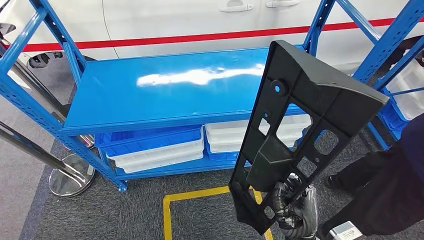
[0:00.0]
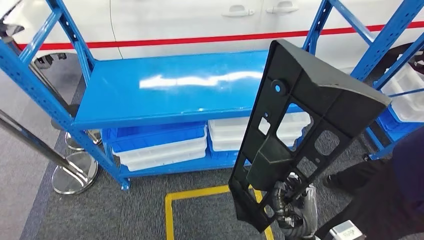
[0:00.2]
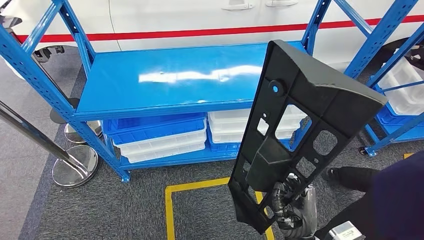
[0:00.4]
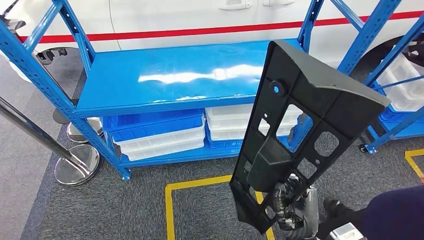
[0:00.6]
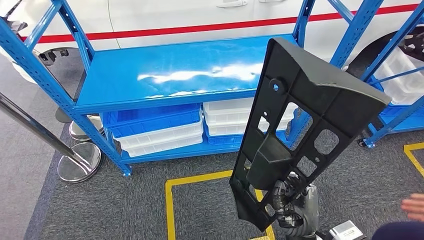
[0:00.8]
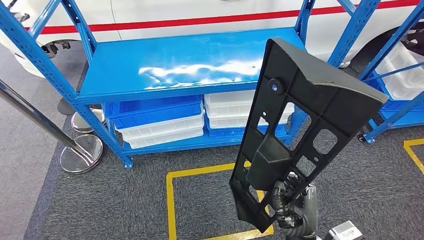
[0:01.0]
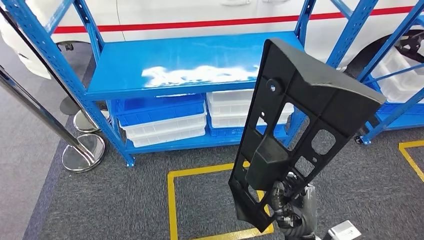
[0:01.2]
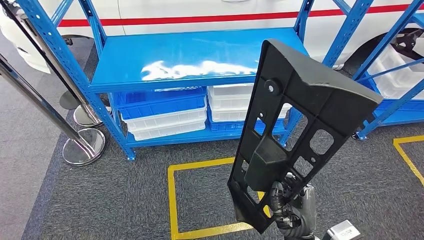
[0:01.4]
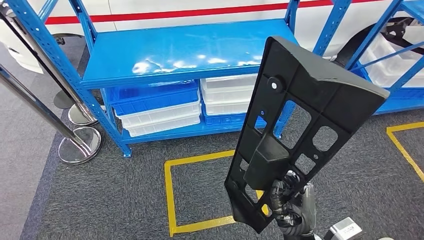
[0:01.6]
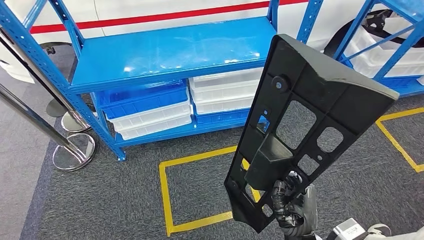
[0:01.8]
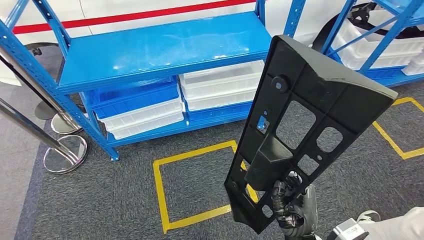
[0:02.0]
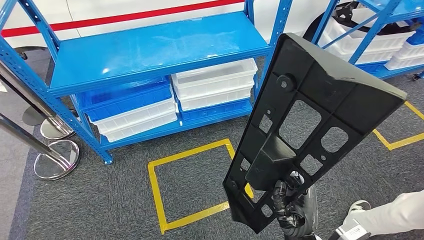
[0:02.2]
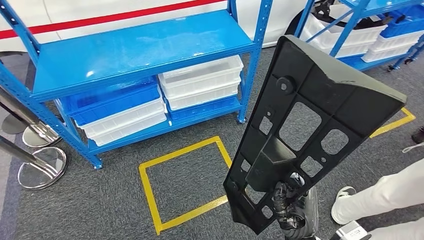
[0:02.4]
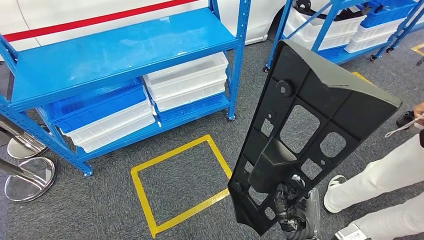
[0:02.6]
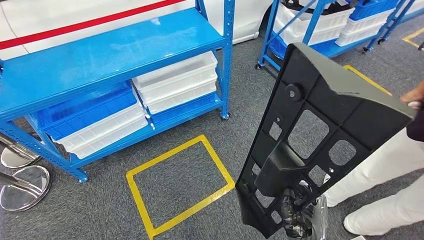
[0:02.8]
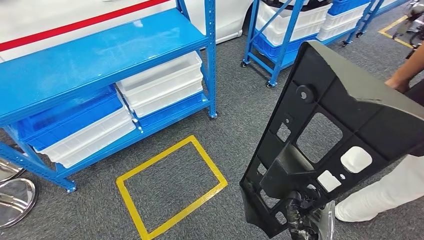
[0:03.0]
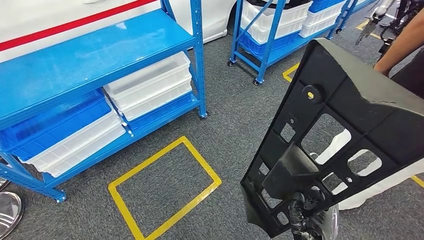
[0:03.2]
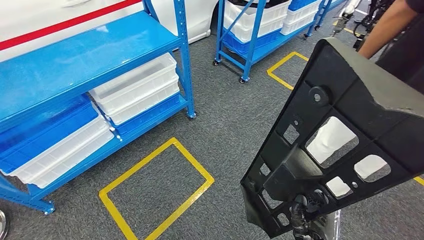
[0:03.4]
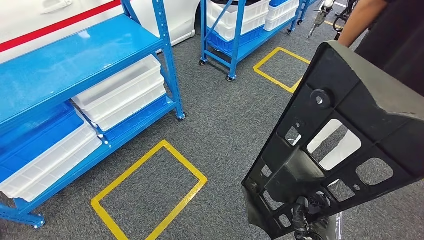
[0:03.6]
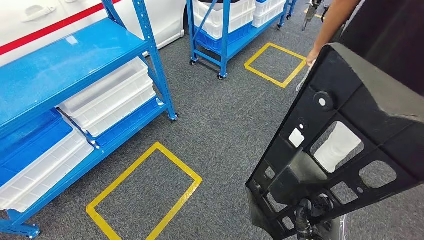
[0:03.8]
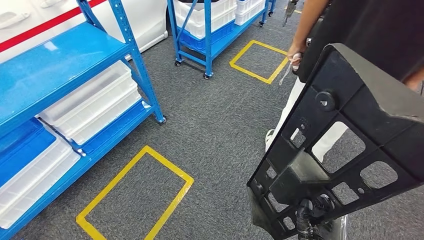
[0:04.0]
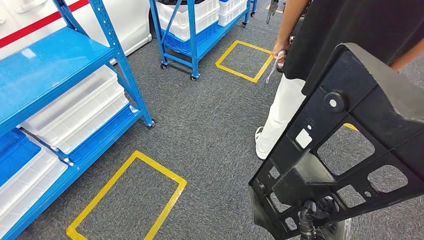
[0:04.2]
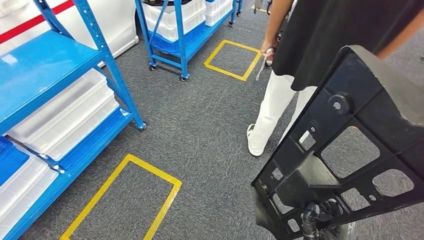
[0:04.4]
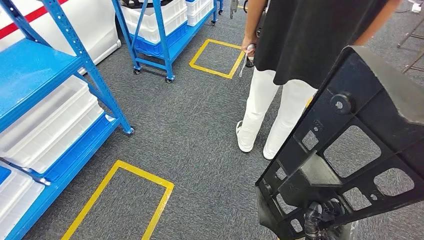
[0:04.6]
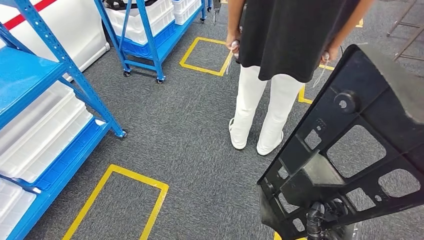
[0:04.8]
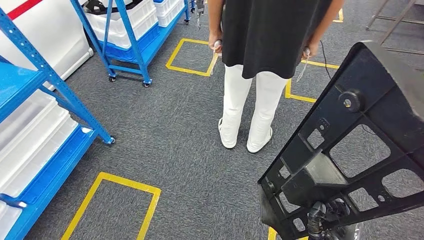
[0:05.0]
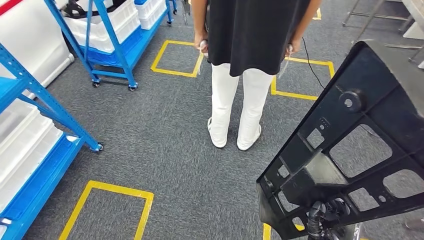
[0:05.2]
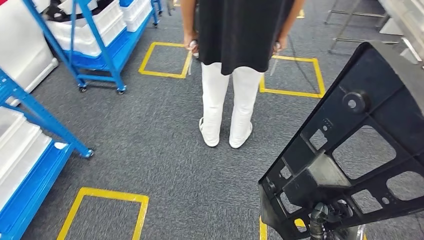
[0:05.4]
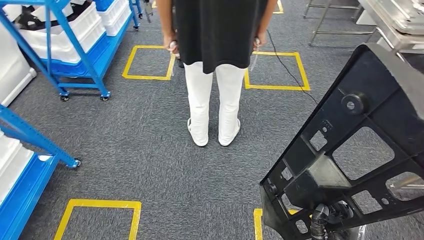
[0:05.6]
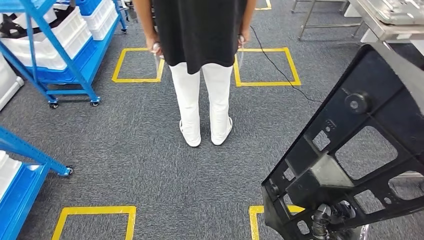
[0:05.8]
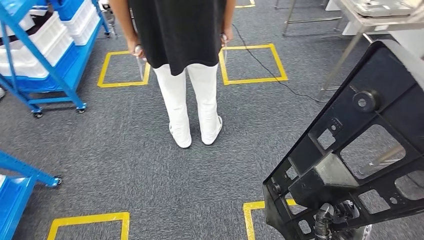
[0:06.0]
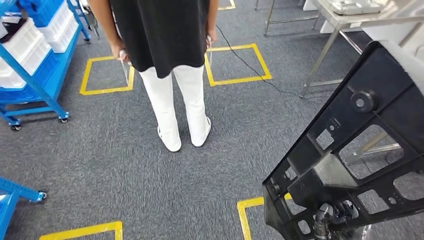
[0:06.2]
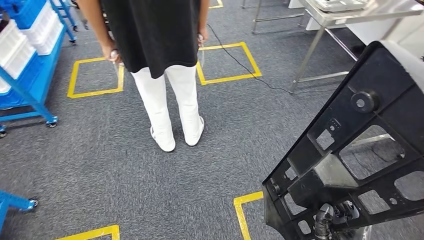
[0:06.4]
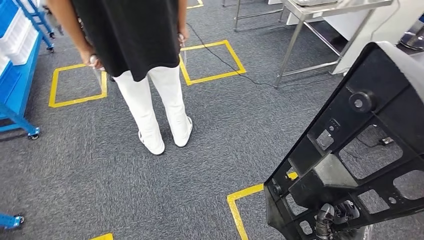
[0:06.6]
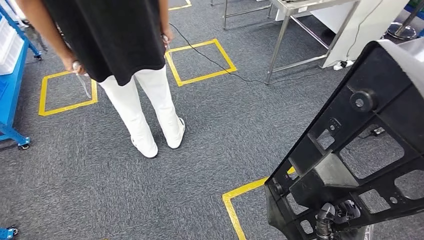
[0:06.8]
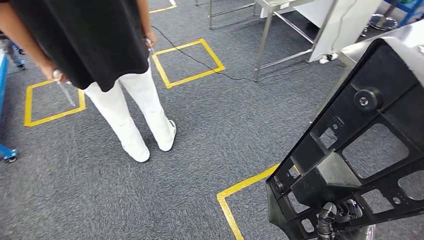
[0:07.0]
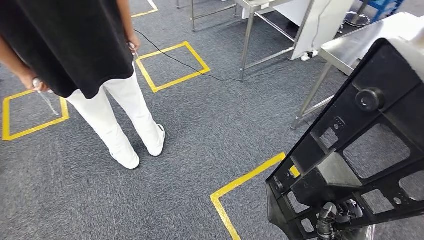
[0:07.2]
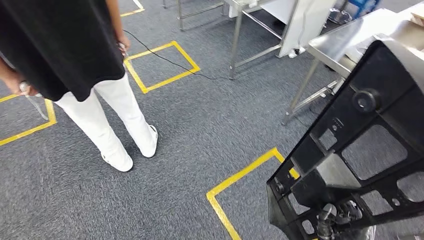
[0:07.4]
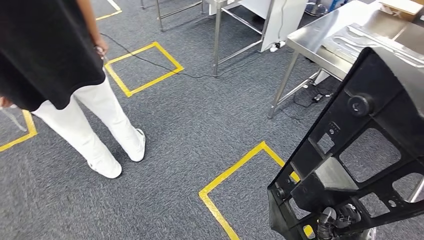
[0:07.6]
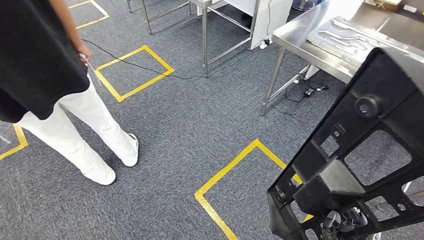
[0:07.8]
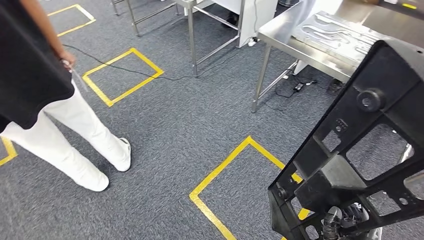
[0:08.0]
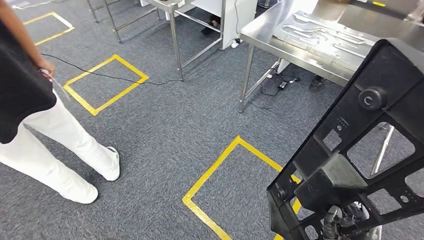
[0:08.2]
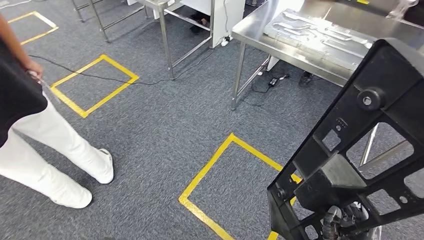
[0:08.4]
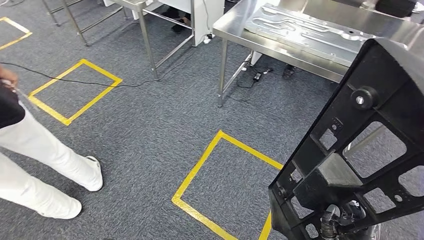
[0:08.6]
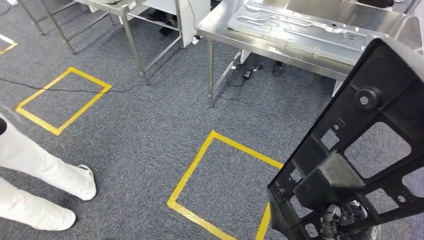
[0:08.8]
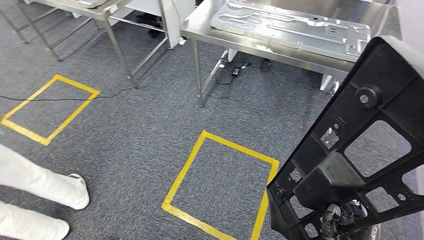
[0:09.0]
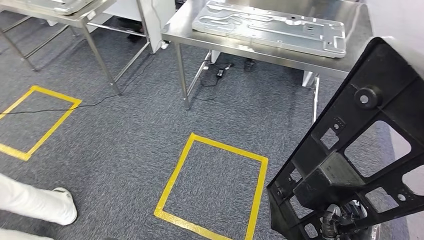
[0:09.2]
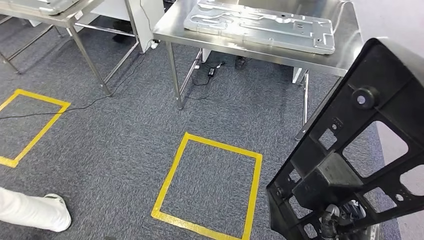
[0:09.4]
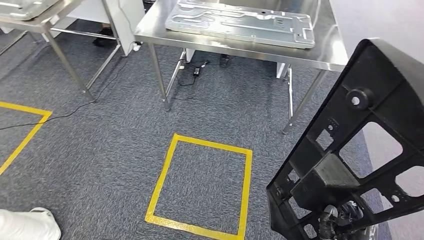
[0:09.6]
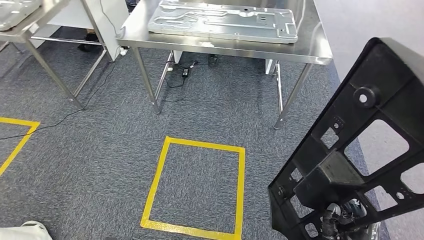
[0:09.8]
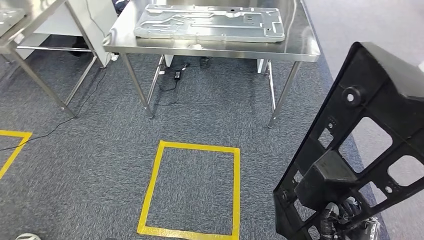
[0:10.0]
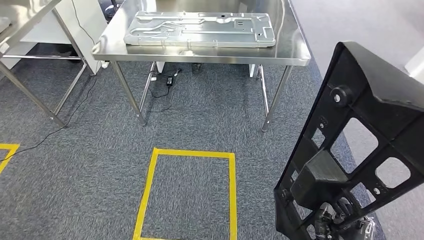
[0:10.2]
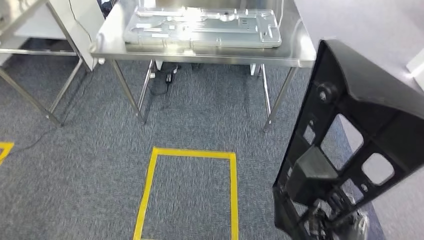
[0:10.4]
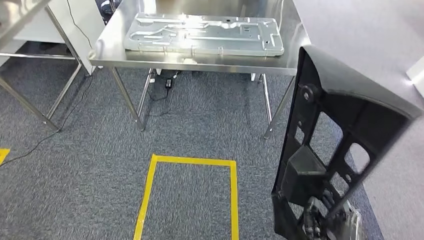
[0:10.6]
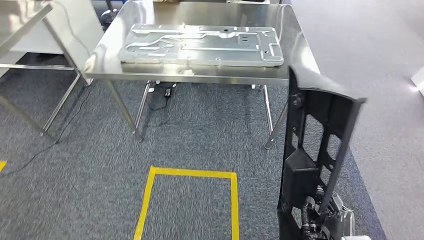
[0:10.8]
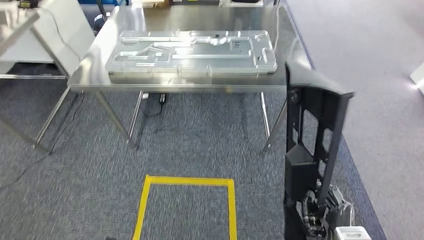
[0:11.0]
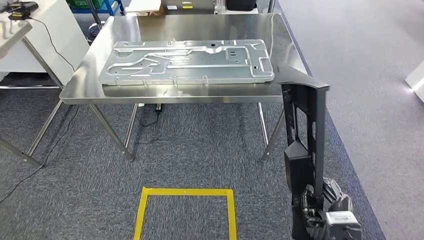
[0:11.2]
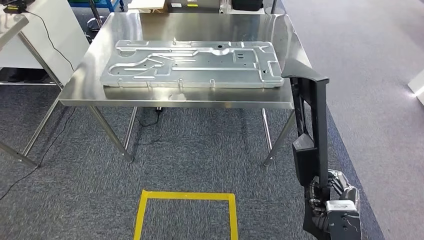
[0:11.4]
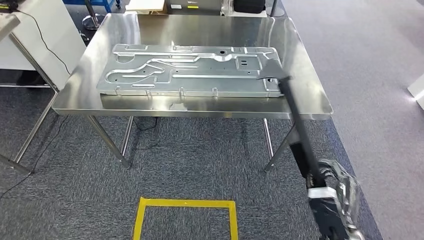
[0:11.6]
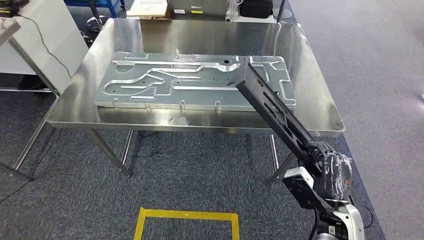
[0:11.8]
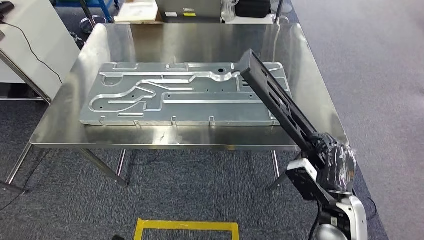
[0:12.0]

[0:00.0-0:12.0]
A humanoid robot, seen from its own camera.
Step, 0:00.0 to 0:12.0: Move the large material to the workbench.

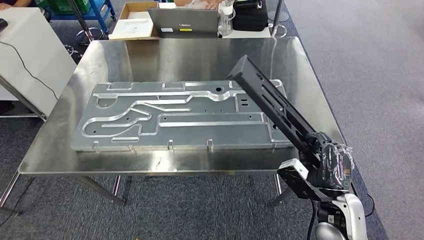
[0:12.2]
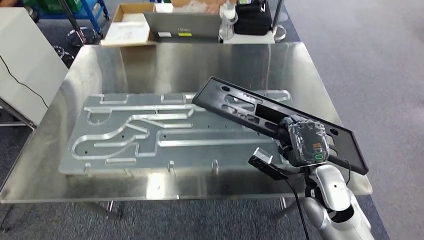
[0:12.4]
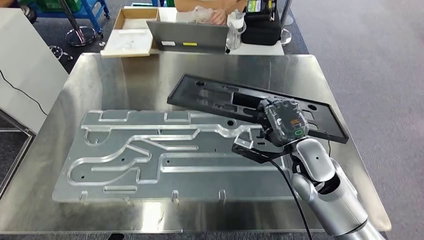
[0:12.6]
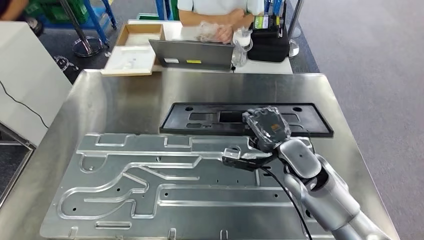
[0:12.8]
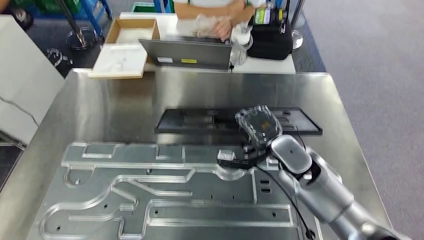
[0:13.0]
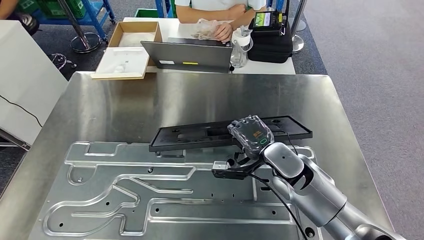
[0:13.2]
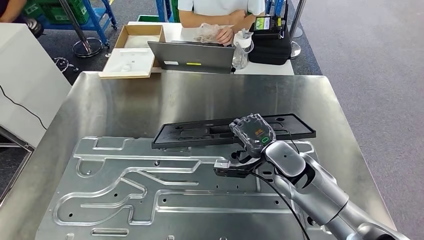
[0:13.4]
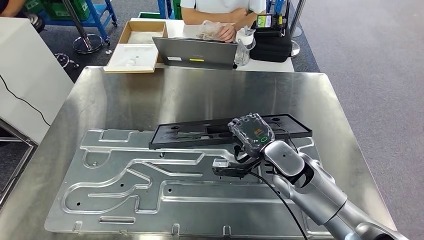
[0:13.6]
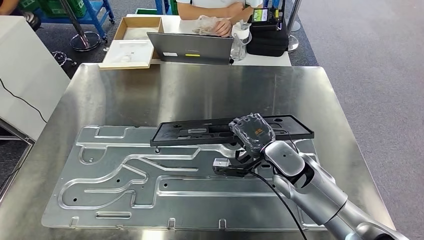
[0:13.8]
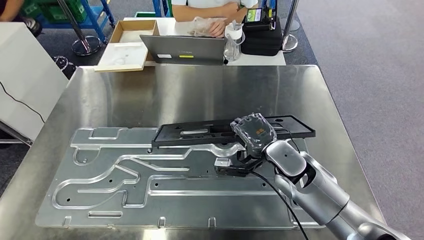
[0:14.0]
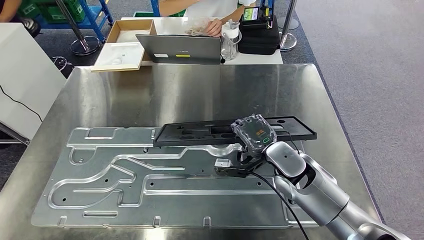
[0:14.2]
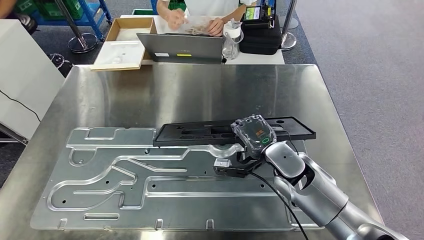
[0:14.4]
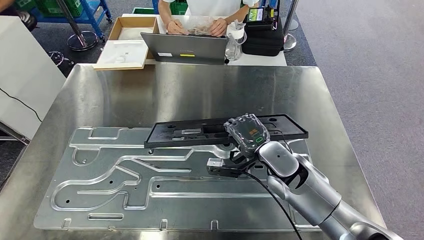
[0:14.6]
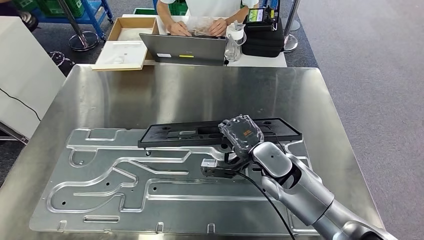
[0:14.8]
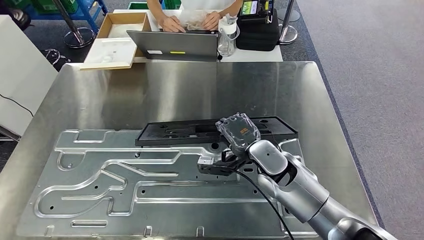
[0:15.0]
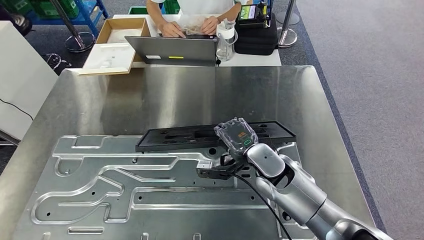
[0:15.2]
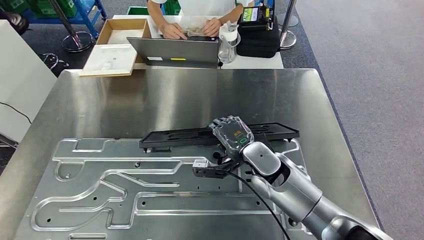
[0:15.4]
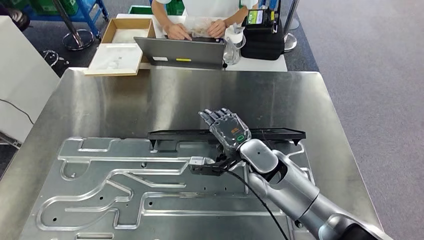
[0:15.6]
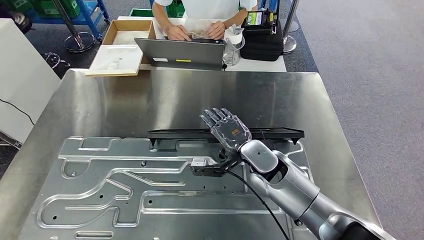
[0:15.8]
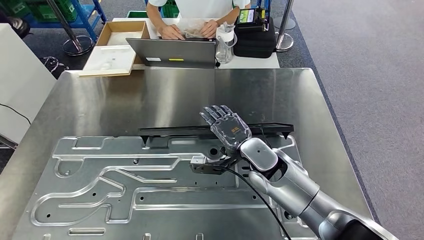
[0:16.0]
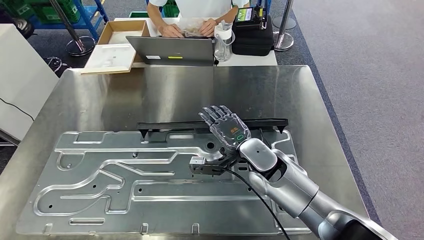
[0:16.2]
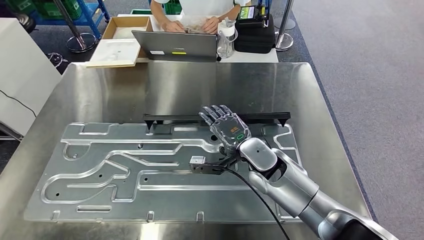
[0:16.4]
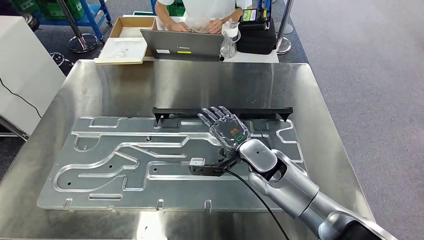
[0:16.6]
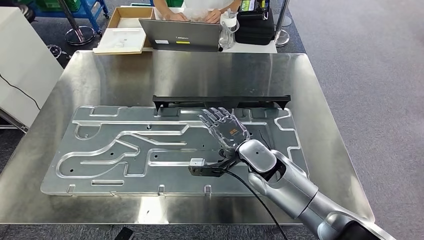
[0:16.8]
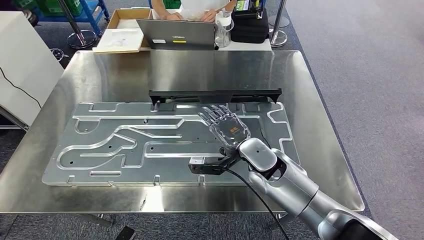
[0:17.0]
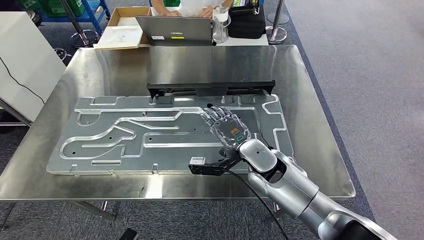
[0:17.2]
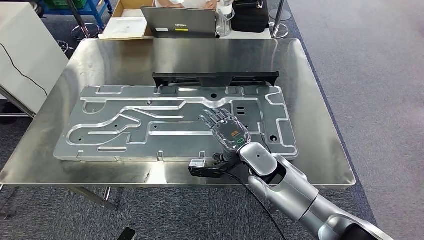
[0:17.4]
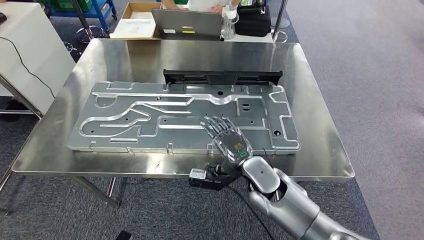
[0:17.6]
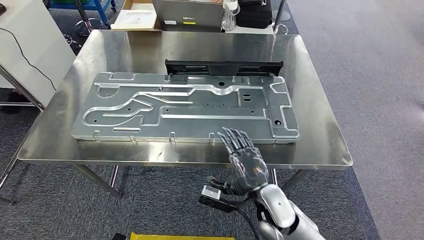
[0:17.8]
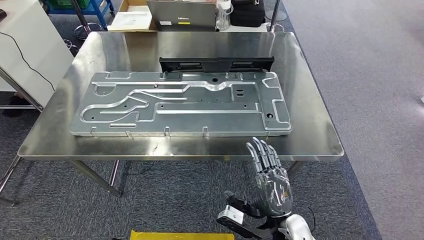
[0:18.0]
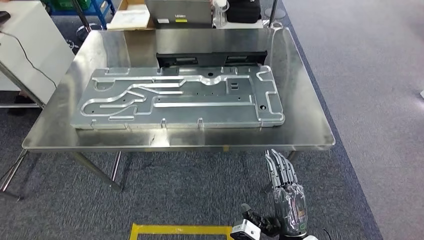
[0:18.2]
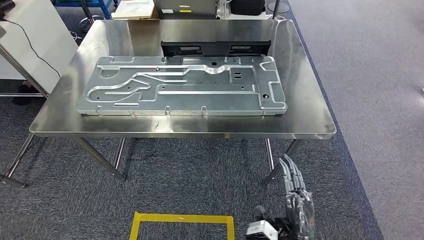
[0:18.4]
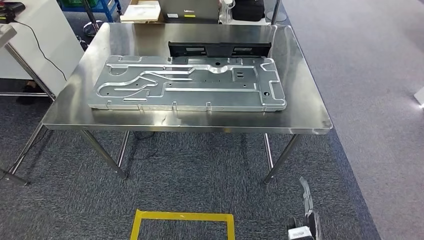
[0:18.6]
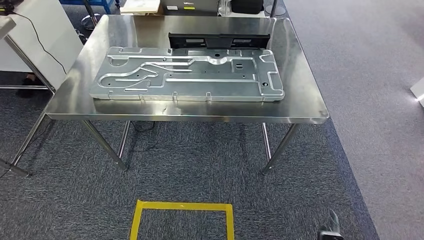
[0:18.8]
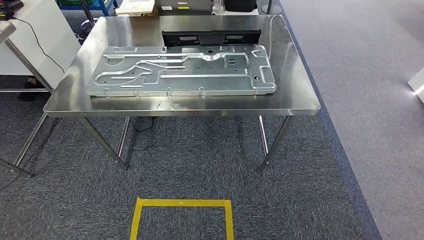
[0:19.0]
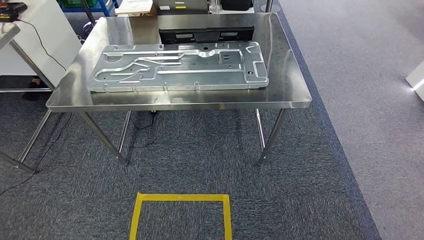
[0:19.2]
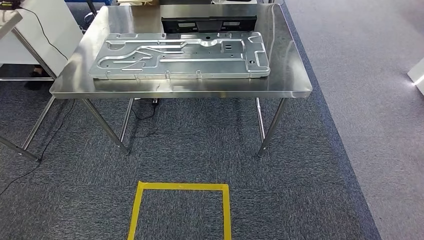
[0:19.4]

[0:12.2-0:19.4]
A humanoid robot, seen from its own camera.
Step, 0:12.2 to 0:16.6: Insert the large material into the corresponding slot on the workbench.
